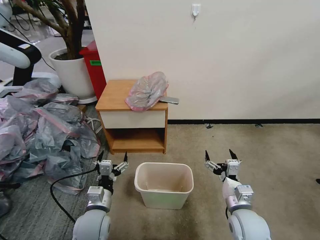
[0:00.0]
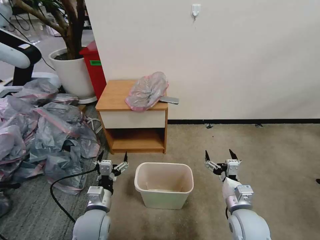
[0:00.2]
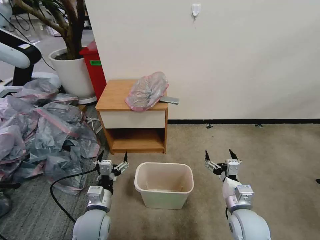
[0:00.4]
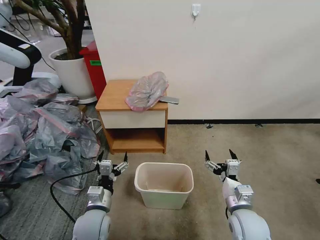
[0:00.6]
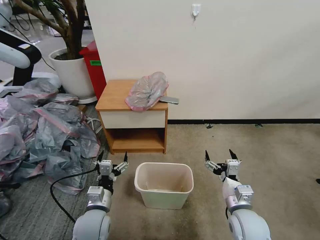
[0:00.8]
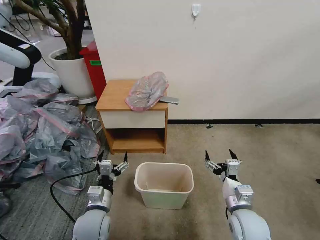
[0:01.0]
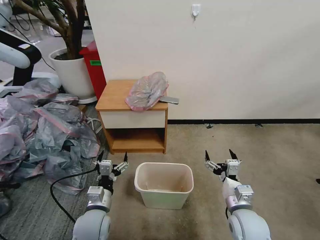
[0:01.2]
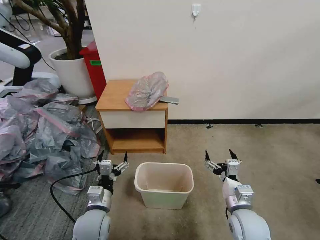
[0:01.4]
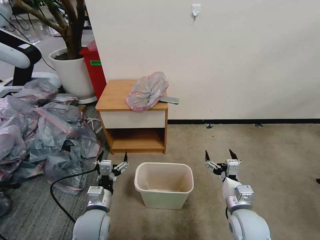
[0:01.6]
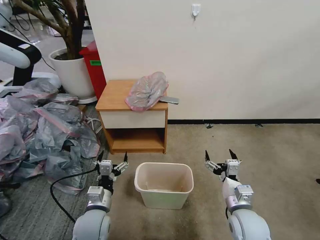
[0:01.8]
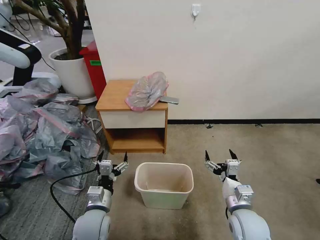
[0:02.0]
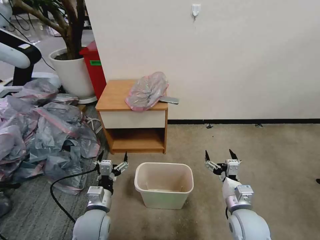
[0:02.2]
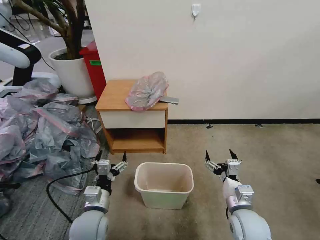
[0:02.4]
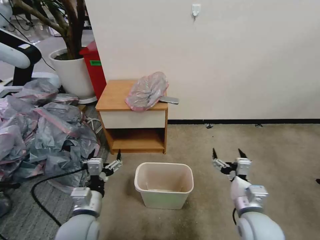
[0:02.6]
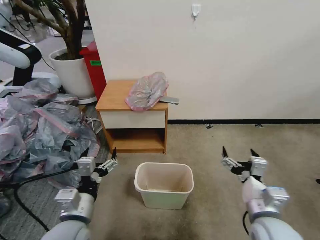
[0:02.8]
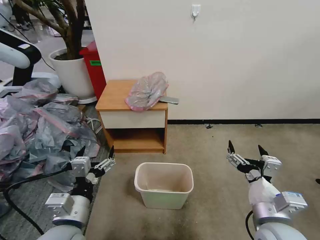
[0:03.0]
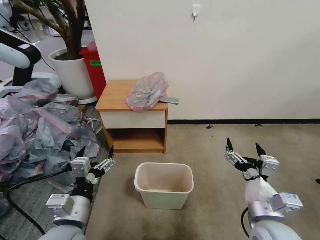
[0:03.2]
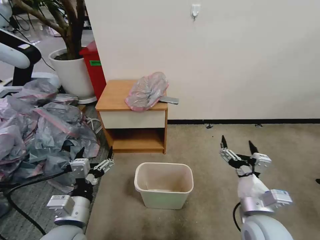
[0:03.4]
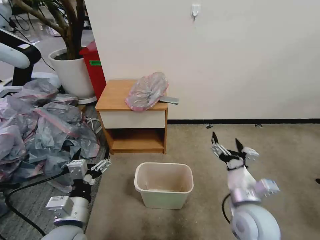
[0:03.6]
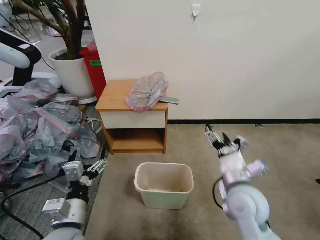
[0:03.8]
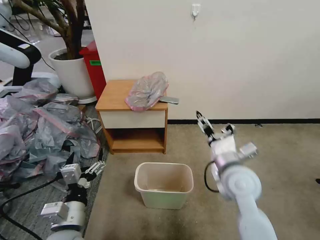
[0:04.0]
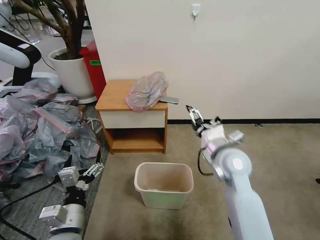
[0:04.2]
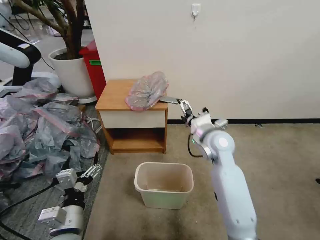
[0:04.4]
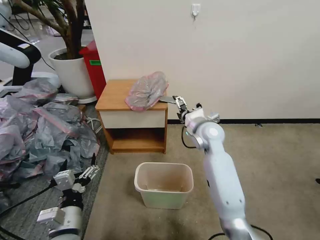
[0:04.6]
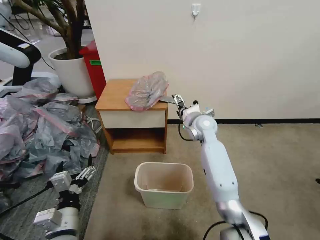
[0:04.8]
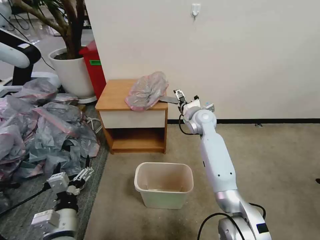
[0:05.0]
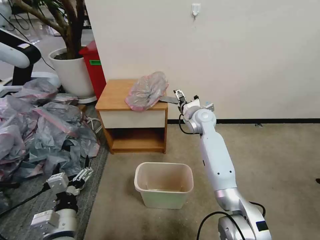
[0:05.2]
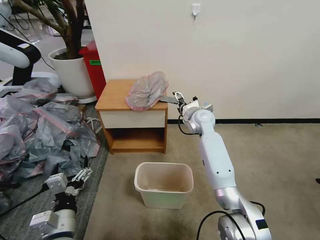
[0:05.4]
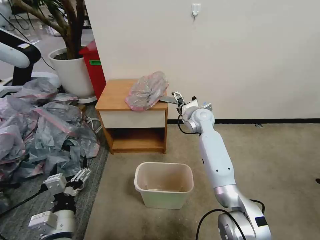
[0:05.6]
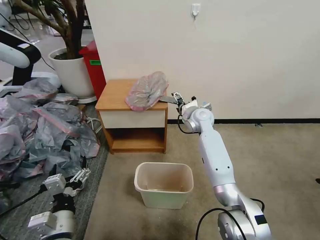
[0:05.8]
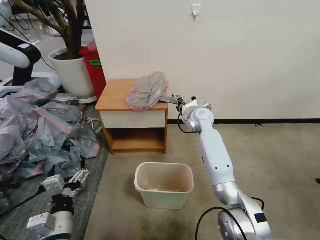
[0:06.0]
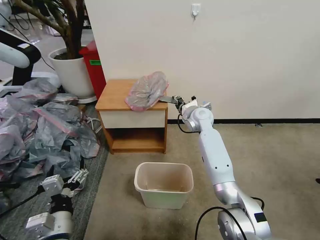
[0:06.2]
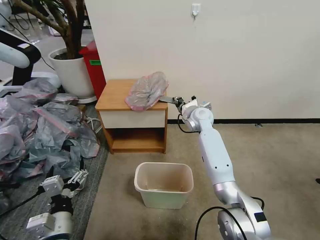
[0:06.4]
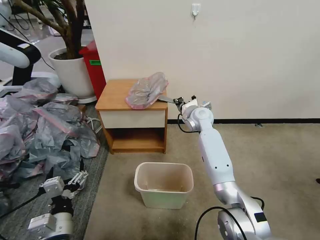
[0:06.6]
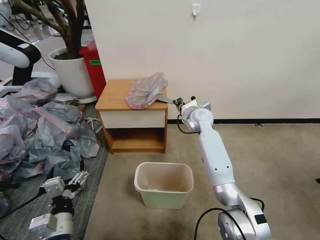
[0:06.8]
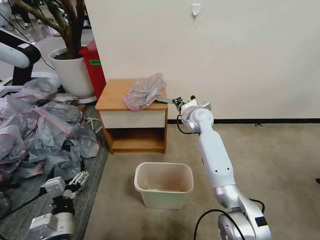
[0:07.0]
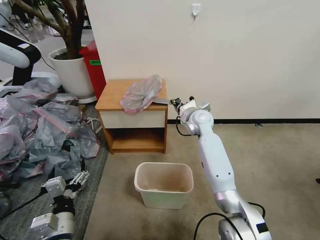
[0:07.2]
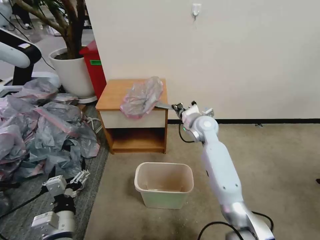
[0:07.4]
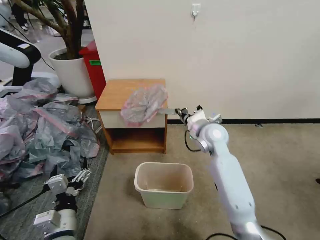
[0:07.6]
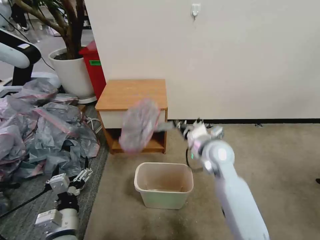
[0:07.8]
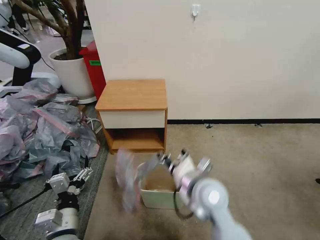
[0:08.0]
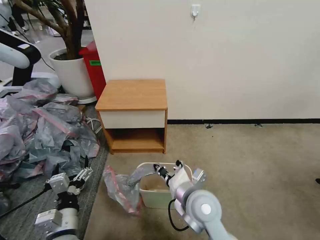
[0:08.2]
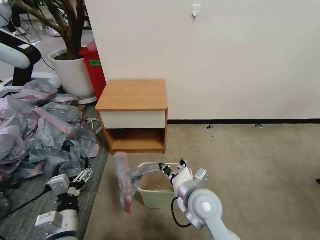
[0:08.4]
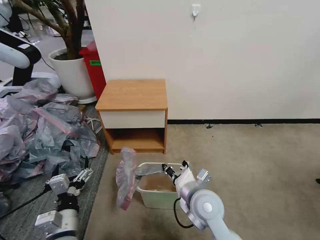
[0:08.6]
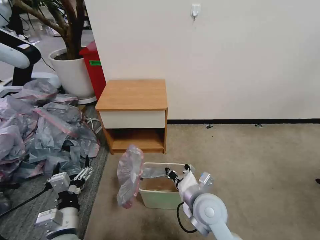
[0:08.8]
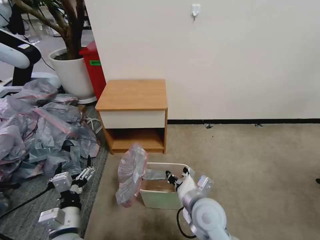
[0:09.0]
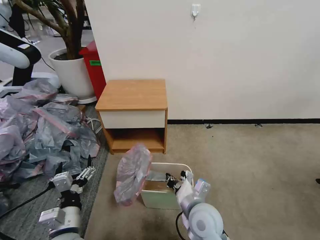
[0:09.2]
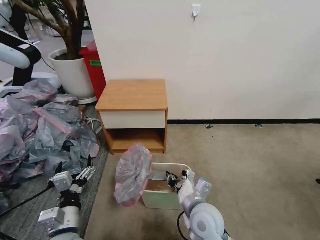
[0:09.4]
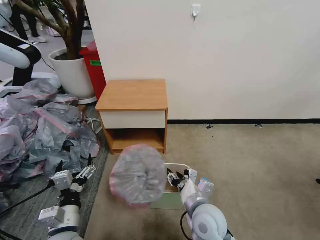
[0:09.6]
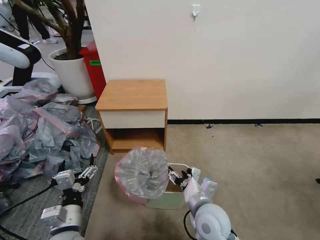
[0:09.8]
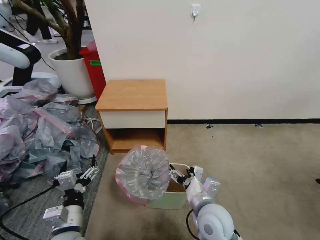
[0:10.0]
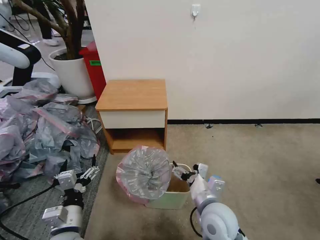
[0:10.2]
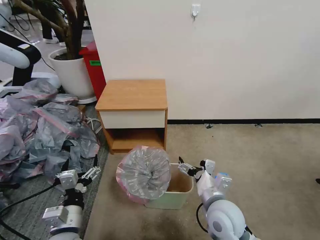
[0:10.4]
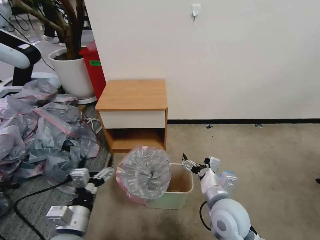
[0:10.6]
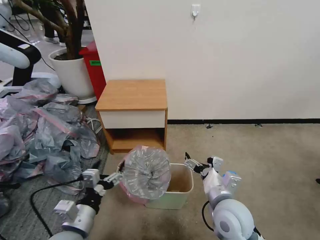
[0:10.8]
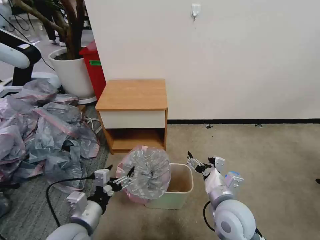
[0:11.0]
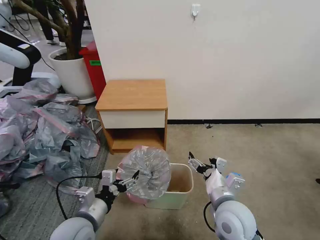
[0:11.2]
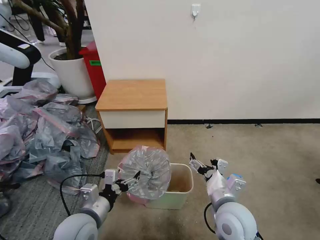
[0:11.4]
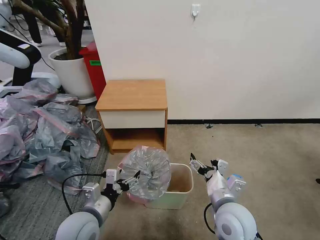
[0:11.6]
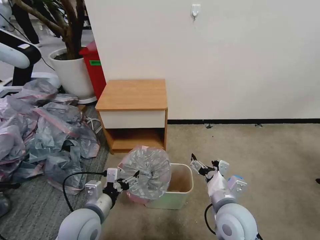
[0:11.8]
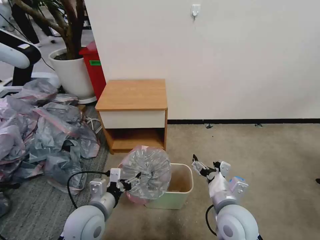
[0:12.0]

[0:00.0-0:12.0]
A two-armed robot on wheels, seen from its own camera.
Task of the whole recording: Pick up the garbage bag from the table and place it over the trash can.
0:01.6 to 0:03.0: The two grippers go about 15 cm upward and backward.
0:03.0 to 0:04.4: The right gripper heads forward, covering approximately 25 cm, while the left gripper travels downward by some 5 cm.
0:04.4 to 0:06.0: The right gripper is displaced forward by some 15 cm.
0:06.0 to 0:07.6: The right gripper is displaced backward by roughly 10 cm, and closes up.
0:07.6 to 0:09.0: The right gripper travels backward and downward by some 25 cm.
0:09.0 to 0:10.4: The right gripper opens its fingers.
0:10.4 to 0:12.0: The left gripper goes about 5 cm forward.

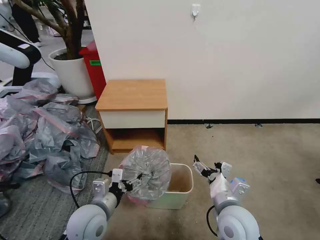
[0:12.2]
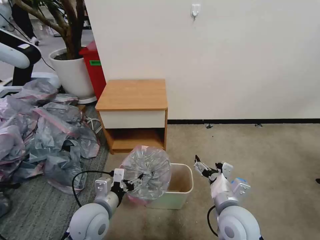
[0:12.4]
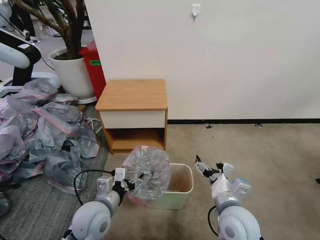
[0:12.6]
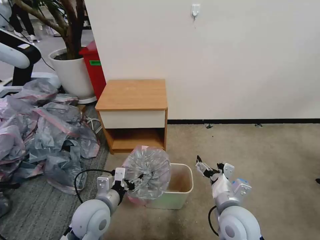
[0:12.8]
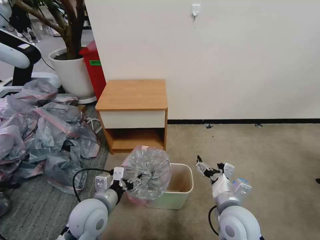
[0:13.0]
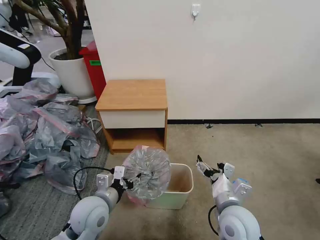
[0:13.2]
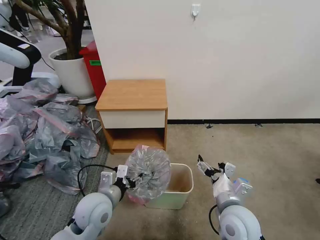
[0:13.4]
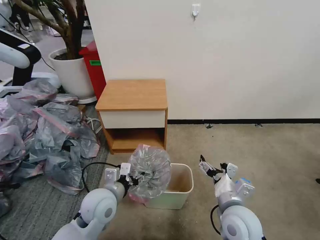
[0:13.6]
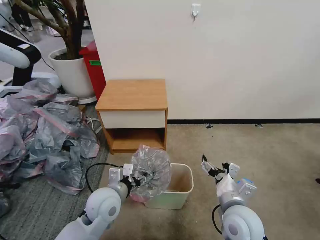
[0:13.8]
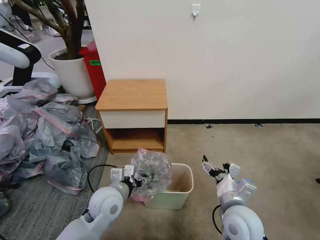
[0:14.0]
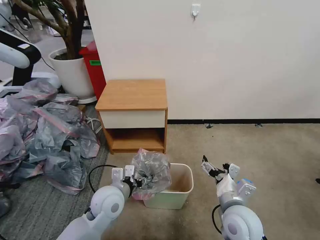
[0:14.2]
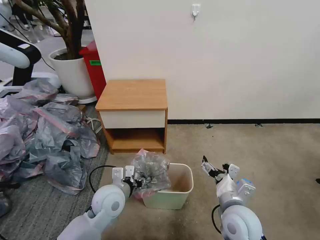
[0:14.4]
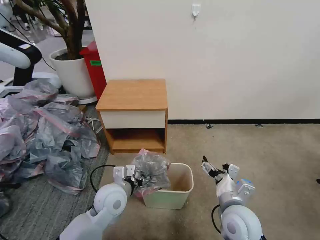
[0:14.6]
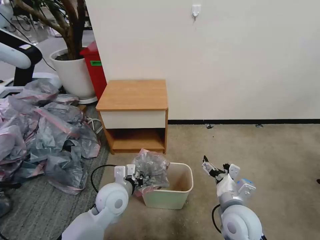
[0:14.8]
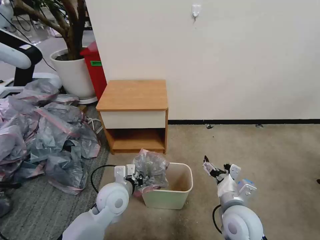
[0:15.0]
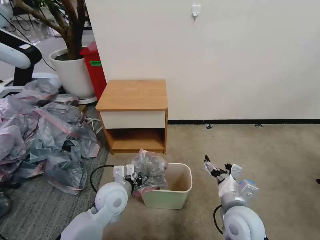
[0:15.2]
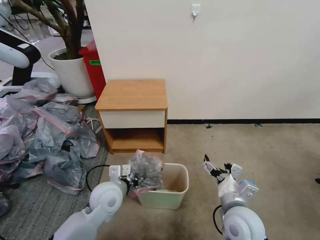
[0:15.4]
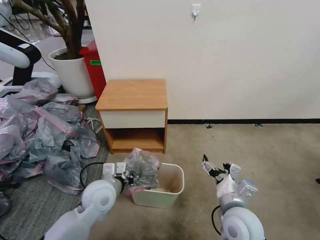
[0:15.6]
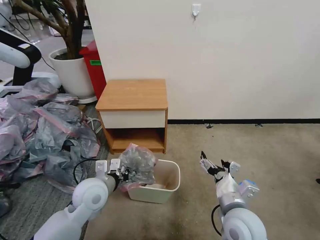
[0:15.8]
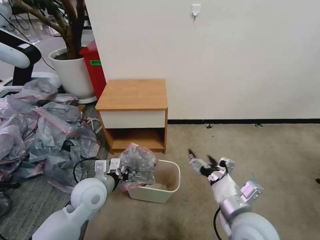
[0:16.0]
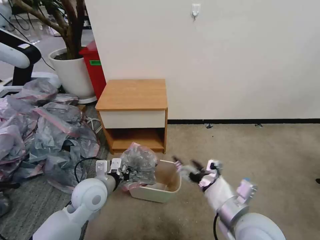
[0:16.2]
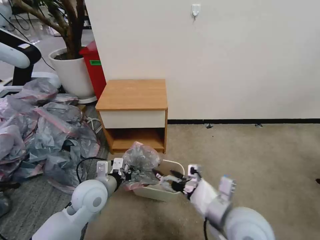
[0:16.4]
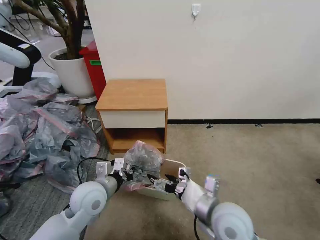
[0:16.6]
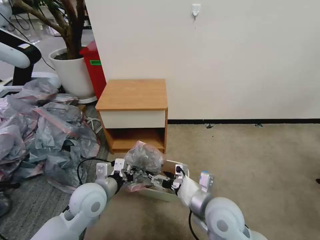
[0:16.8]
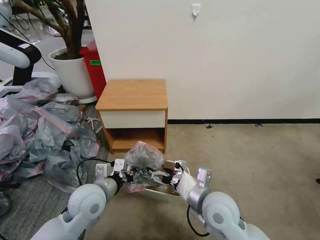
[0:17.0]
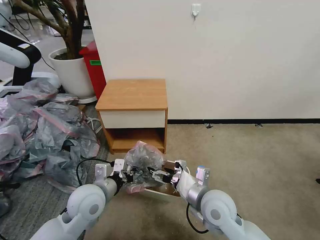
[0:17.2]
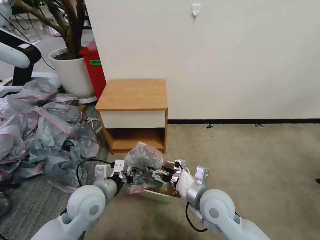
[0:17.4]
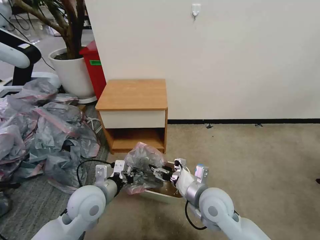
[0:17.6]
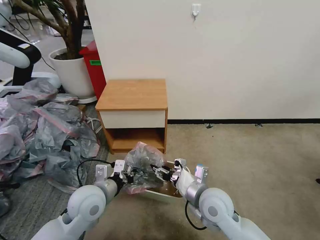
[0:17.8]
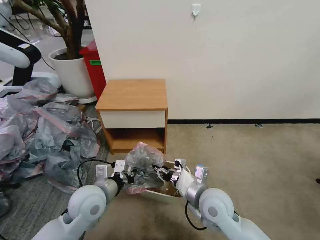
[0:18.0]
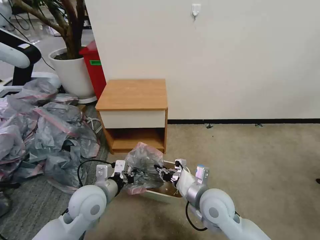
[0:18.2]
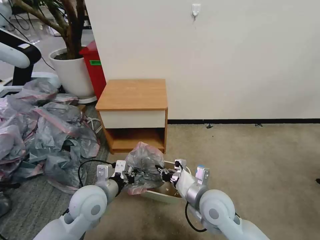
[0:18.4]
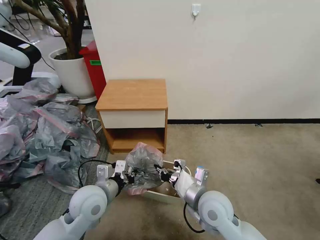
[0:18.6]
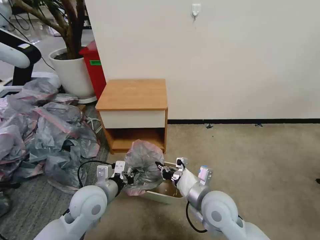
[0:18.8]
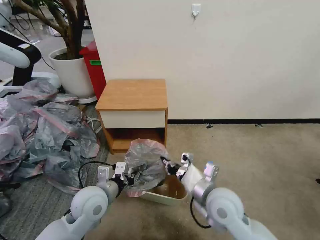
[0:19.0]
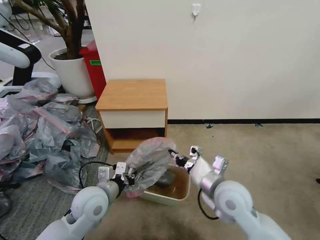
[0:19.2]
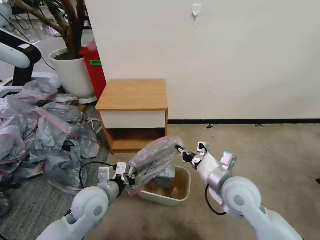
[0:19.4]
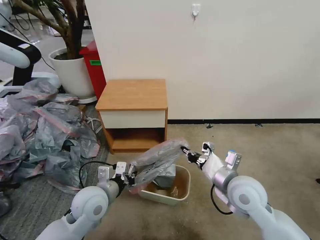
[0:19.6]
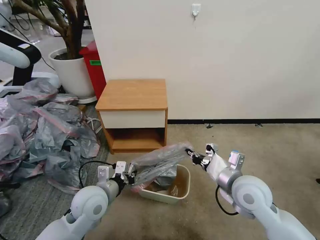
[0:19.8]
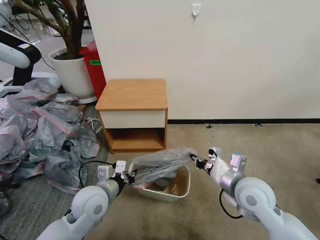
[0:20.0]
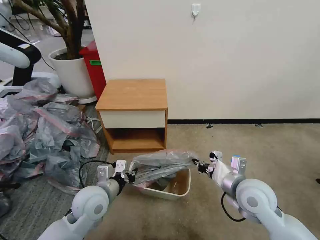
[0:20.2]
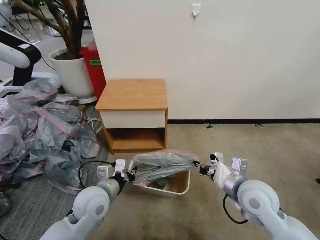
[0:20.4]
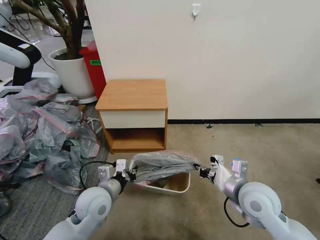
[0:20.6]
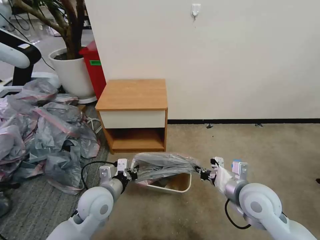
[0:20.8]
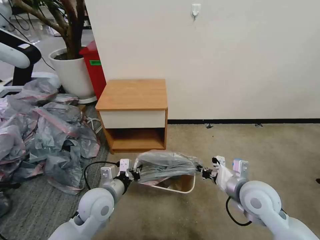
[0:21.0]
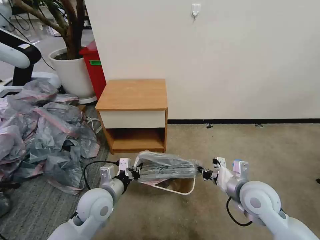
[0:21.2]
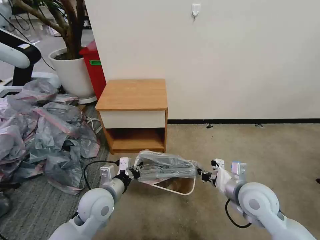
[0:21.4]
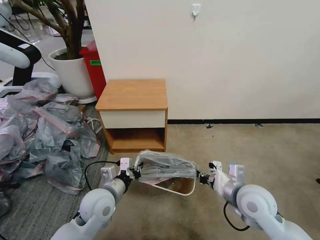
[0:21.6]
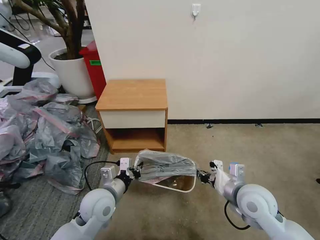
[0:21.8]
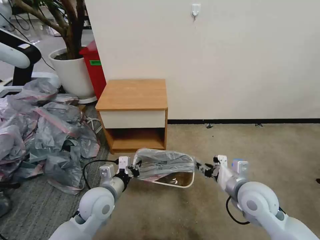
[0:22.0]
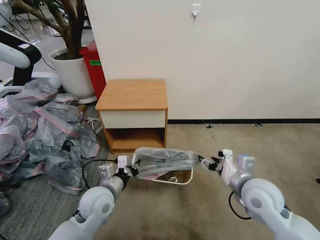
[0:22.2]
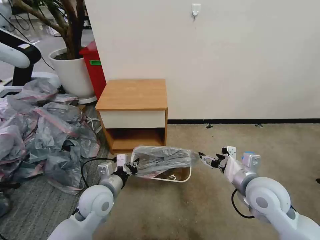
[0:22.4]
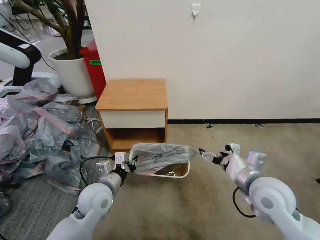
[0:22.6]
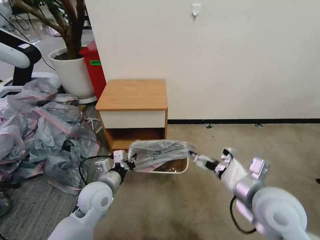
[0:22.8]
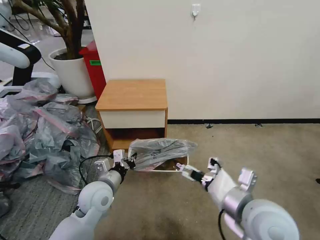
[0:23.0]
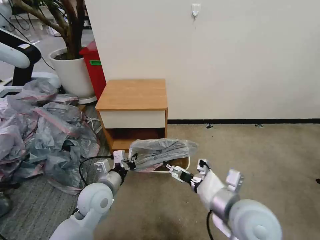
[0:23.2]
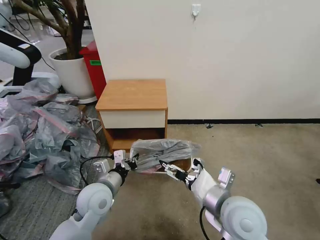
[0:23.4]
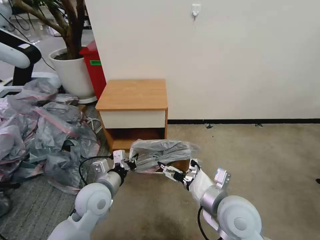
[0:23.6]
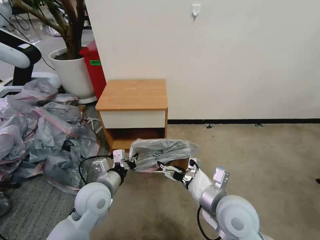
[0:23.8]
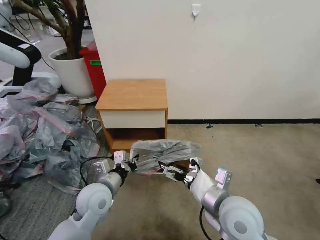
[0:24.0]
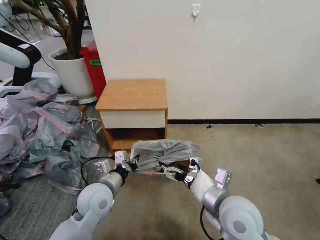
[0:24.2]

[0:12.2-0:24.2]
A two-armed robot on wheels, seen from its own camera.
Task of the whole recording: Pick up the garbage bag from the table and place it over the trash can.
0:12.2 to 0:13.8: The left gripper shifts by approximately 5 cm.
0:13.8 to 0:15.2: The left gripper closes.
0:15.2 to 0:16.6: The left gripper is displaced to the left by approximately 5 cm. Meanwhile the right gripper travels upward by approximately 5 cm.
0:16.6 to 0:18.2: The right gripper ends up some 5 cm from where it was, and closes its fingers.
0:18.2 to 0:19.8: The right gripper heads to the right, covering roughly 10 cm.
0:19.8 to 0:21.2: The grippers stay close to where they were, moving slightly.
0:21.2 to 0:22.6: The right gripper opens up.
0:22.6 to 0:24.2: The right gripper shifts approximately 10 cm to the left.
